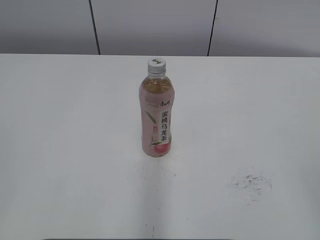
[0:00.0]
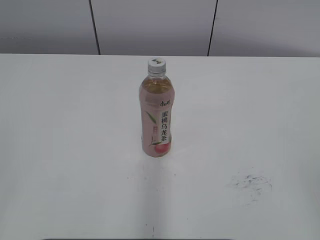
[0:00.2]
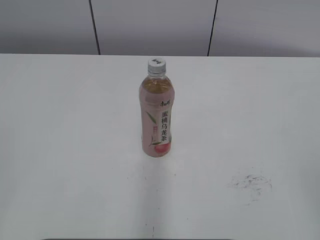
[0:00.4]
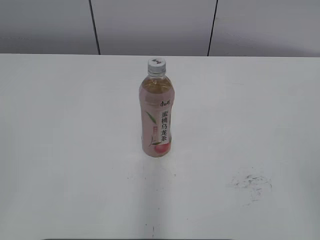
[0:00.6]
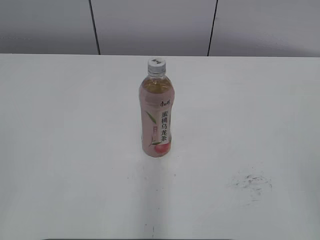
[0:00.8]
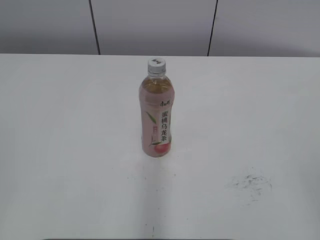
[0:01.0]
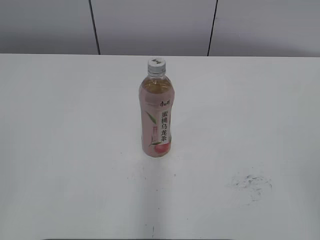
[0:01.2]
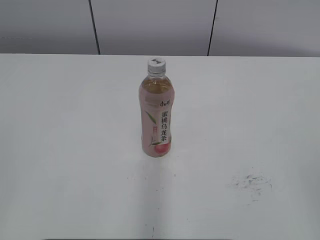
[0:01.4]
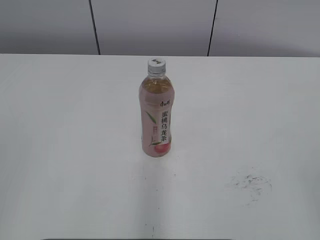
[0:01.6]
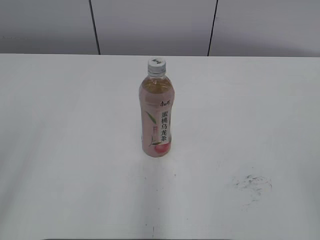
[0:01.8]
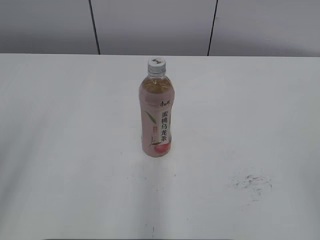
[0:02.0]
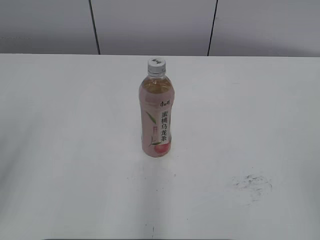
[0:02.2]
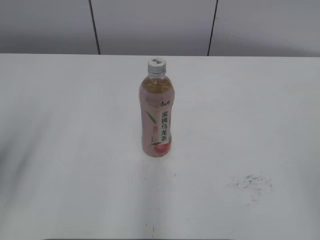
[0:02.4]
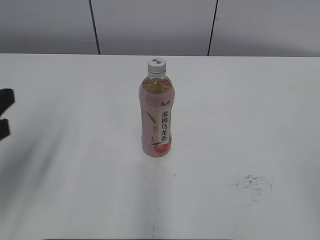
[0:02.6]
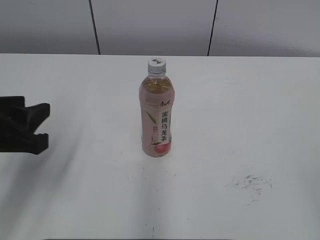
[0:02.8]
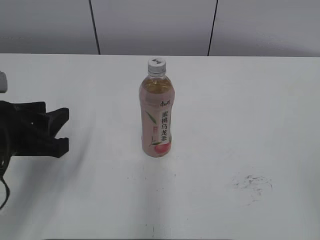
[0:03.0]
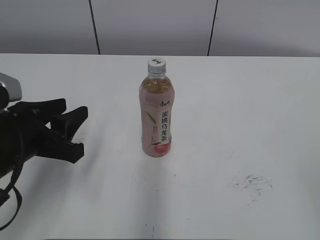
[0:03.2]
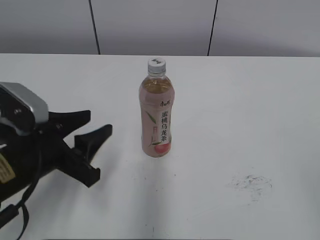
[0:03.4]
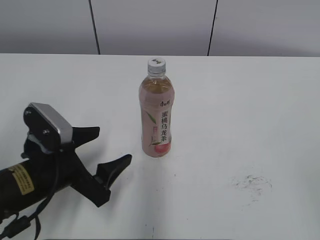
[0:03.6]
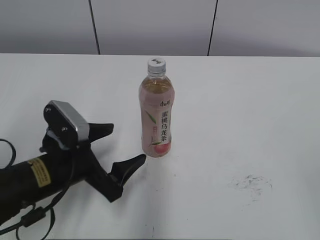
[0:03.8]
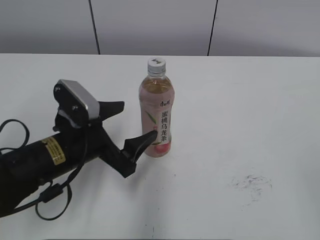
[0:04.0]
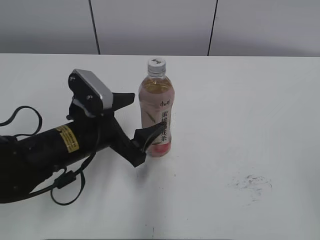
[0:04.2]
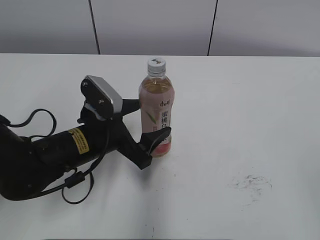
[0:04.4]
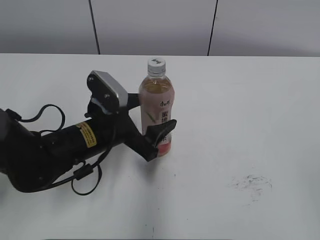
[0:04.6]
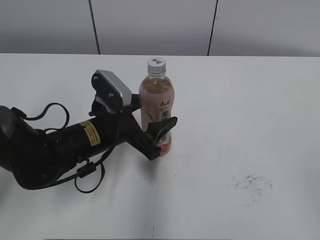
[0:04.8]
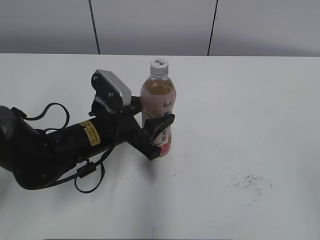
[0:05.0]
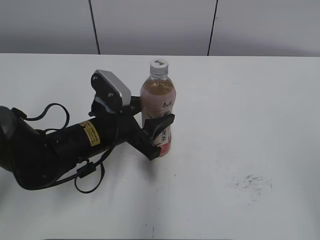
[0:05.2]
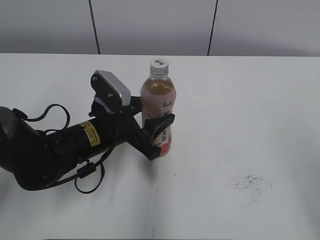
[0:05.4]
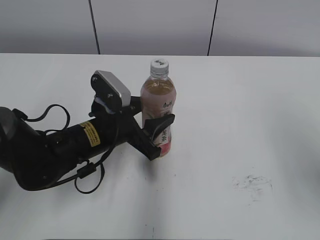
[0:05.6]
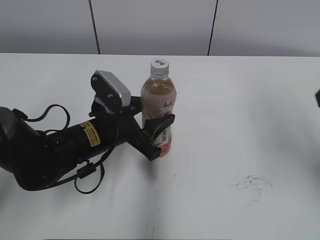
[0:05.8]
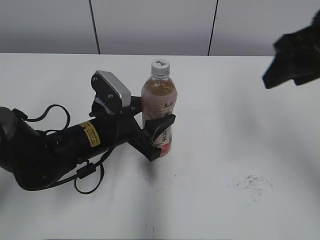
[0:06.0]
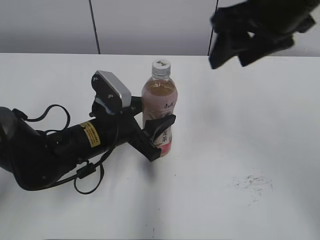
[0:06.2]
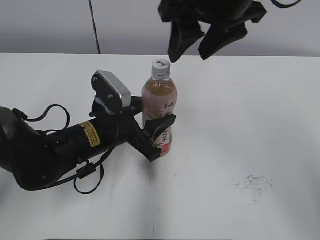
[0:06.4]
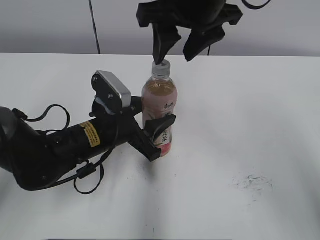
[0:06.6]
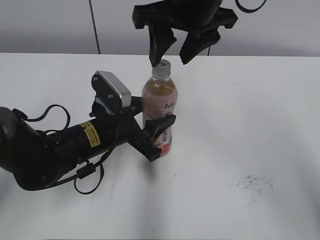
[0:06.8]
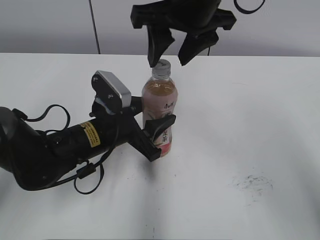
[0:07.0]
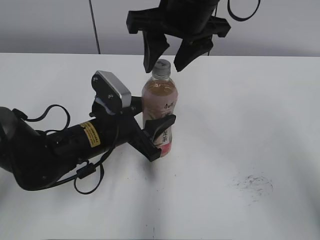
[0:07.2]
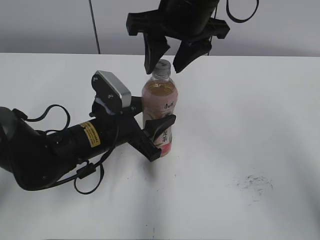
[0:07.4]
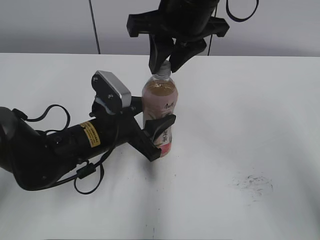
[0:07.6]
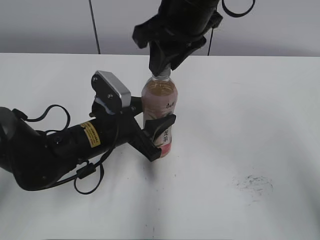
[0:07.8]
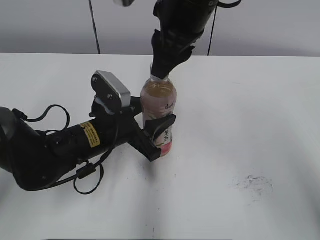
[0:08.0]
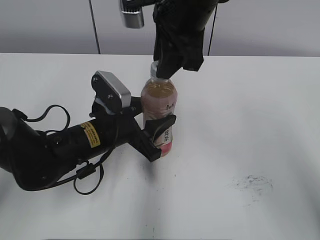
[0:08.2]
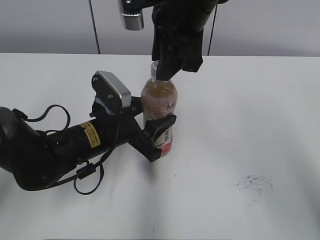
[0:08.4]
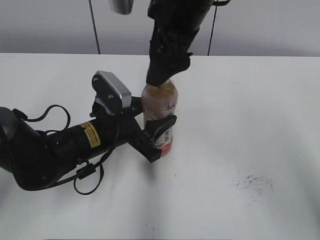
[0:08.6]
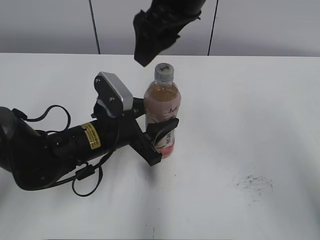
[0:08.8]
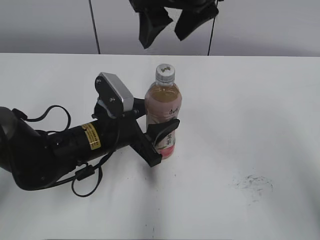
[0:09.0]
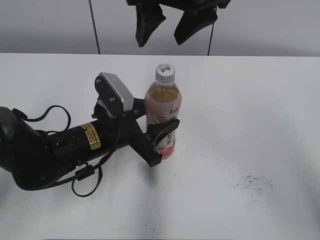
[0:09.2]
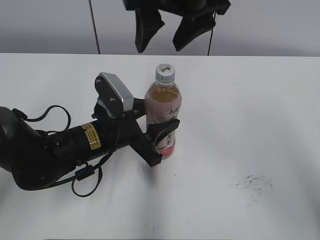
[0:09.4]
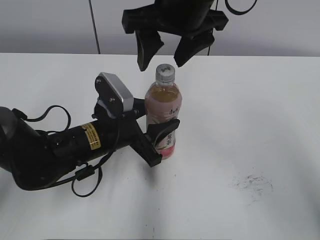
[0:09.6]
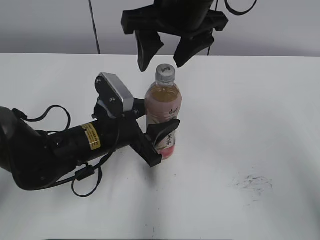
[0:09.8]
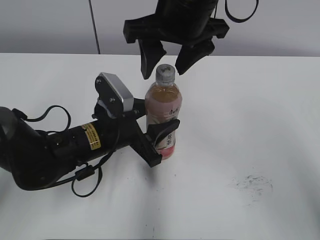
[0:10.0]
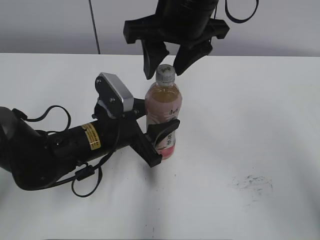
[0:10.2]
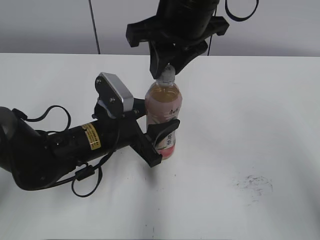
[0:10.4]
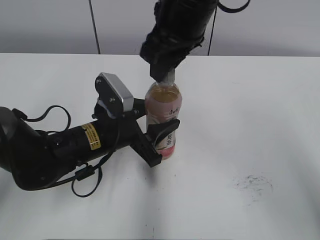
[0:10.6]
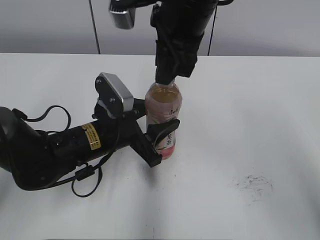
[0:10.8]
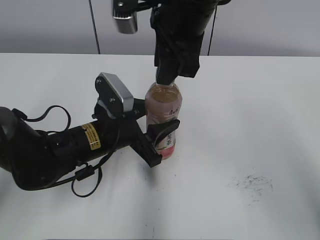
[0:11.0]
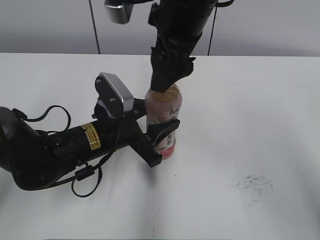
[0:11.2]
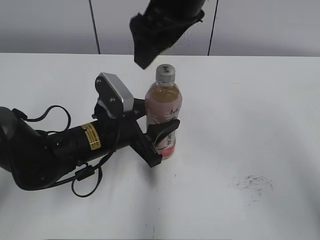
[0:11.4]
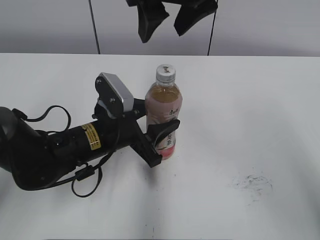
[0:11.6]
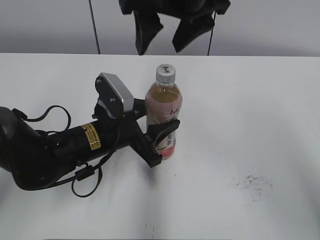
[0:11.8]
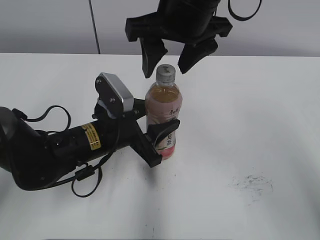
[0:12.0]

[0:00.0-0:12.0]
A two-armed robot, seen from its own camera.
Step, 0:00.0 to 0:05.2: Grab the Peach Oolong Tea with the left hand.
0:01.6 to 0:03.0: The left gripper is displaced forward, downward and to the right by roughly 25 cm.
0:03.0 to 0:04.4: The left gripper moves to the right, forward and downward, approximately 15 cm, and opens its fingers.
0:04.4 to 0:06.0: The right gripper goes about 25 cm forward, while the left gripper closes.
0:06.0 to 0:07.6: The right gripper shifts about 15 cm to the left, and closes up.
0:07.6 to 0:09.0: The right gripper opens its fingers.
0:09.0 to 0:10.4: The right gripper closes.
0:10.4 to 0:12.0: The right gripper opens up.

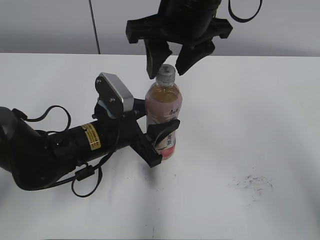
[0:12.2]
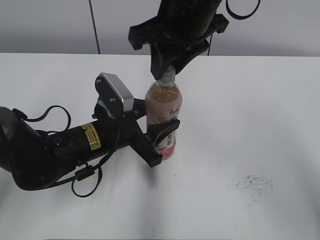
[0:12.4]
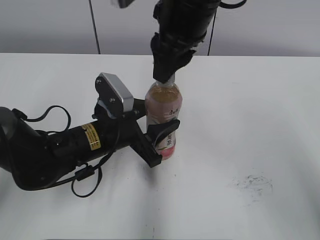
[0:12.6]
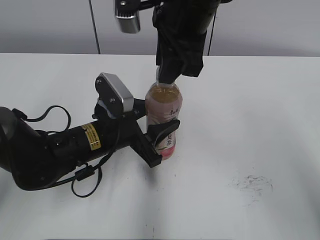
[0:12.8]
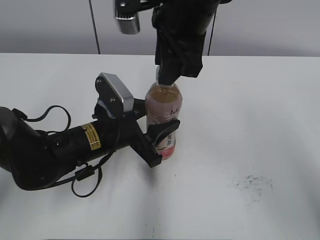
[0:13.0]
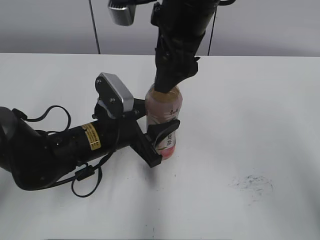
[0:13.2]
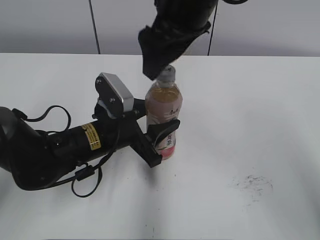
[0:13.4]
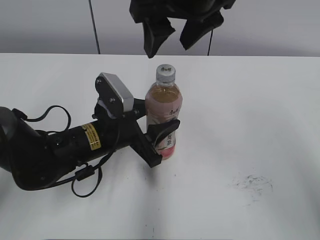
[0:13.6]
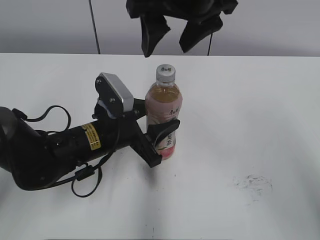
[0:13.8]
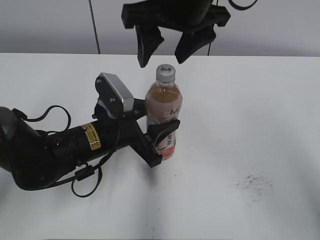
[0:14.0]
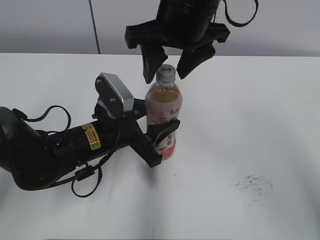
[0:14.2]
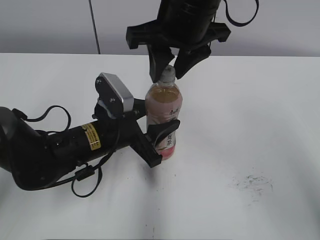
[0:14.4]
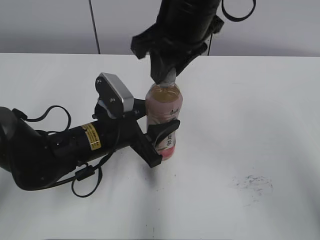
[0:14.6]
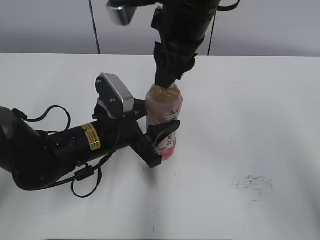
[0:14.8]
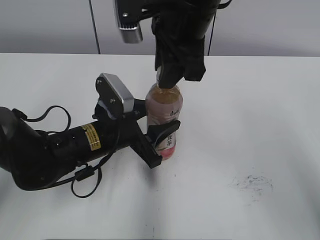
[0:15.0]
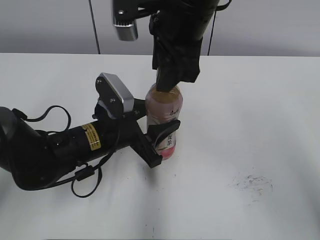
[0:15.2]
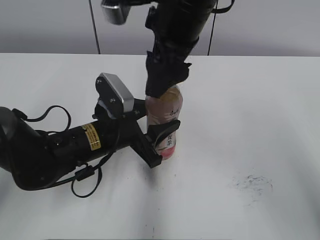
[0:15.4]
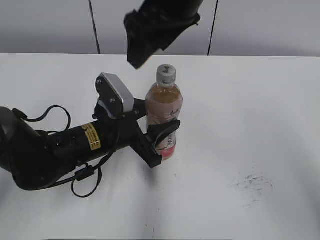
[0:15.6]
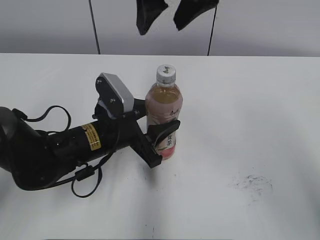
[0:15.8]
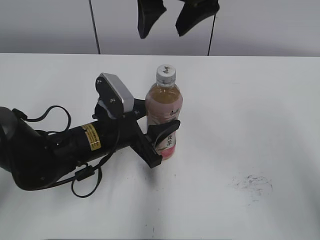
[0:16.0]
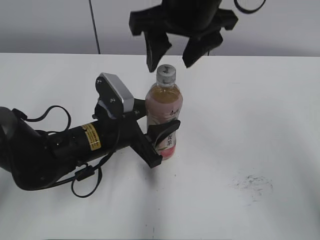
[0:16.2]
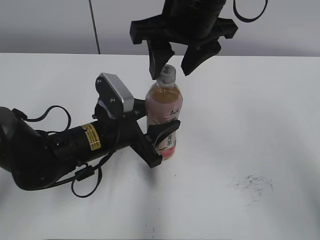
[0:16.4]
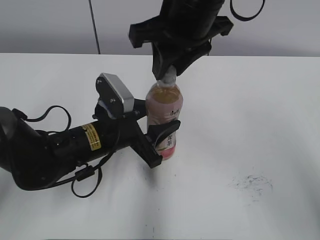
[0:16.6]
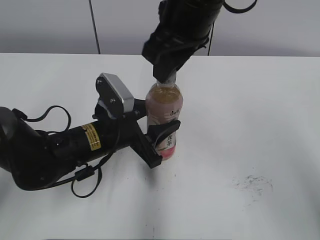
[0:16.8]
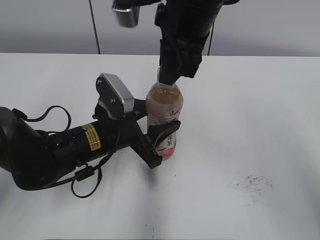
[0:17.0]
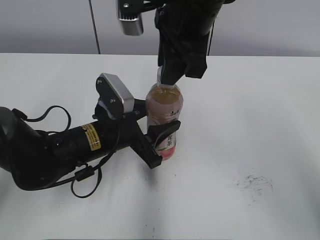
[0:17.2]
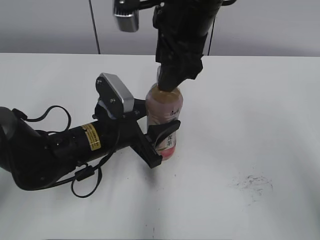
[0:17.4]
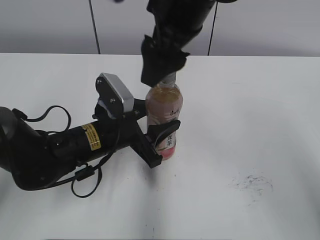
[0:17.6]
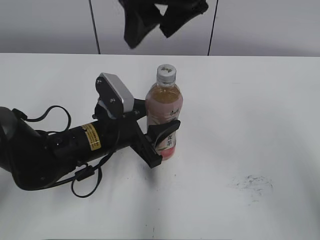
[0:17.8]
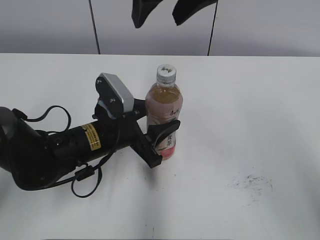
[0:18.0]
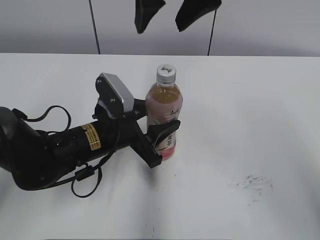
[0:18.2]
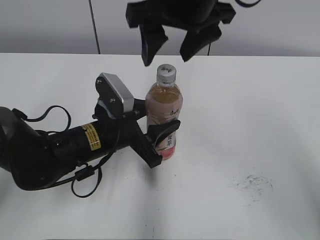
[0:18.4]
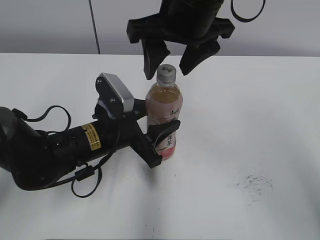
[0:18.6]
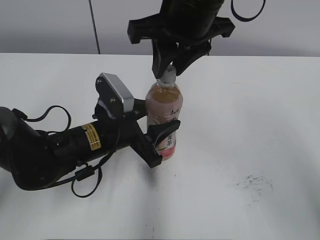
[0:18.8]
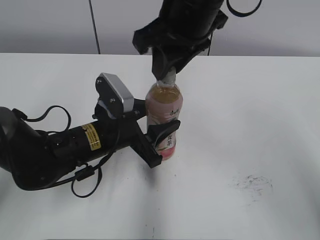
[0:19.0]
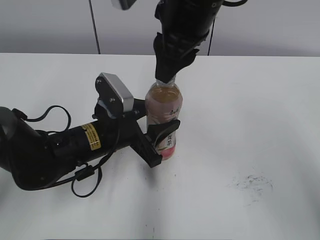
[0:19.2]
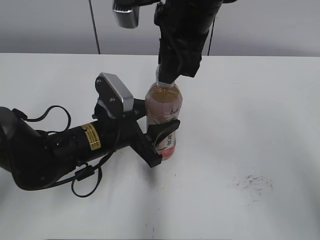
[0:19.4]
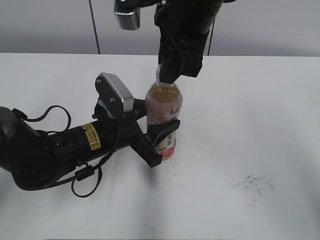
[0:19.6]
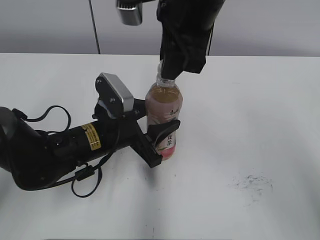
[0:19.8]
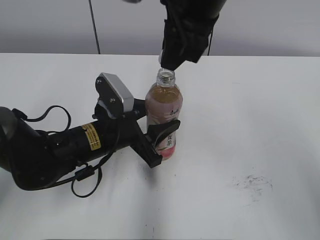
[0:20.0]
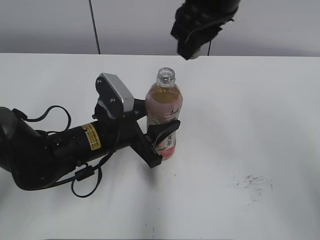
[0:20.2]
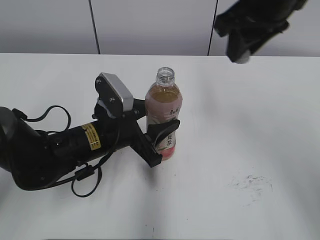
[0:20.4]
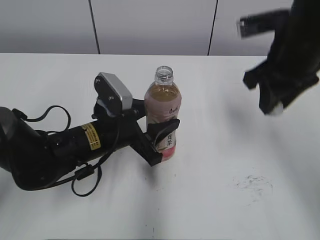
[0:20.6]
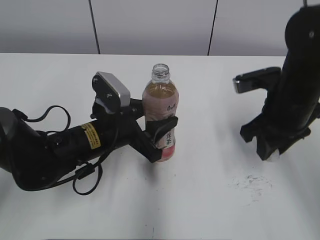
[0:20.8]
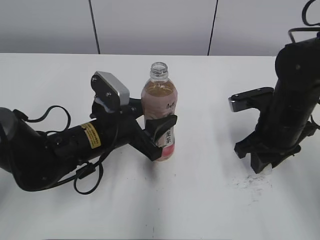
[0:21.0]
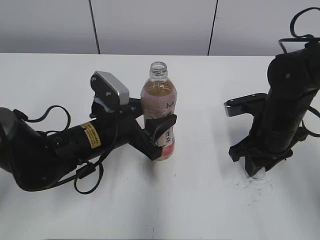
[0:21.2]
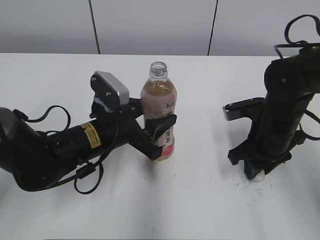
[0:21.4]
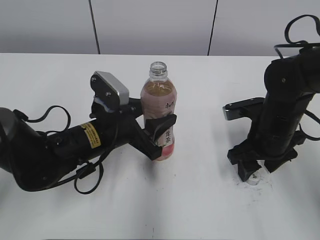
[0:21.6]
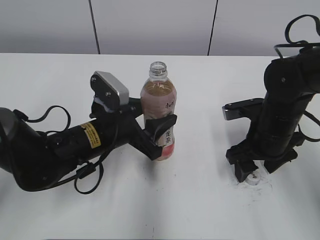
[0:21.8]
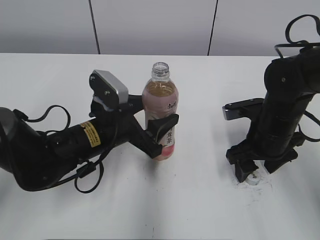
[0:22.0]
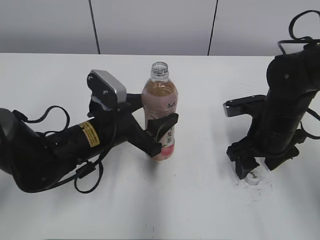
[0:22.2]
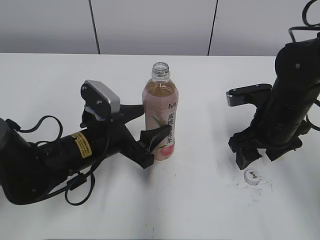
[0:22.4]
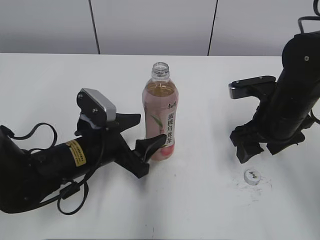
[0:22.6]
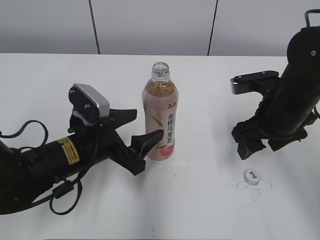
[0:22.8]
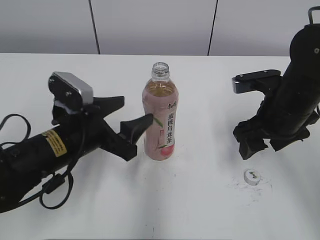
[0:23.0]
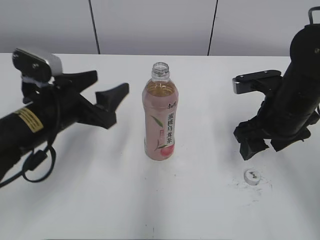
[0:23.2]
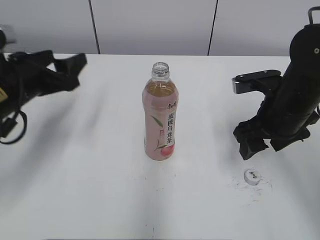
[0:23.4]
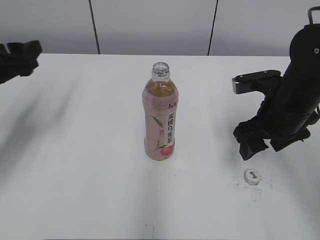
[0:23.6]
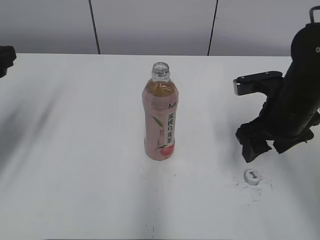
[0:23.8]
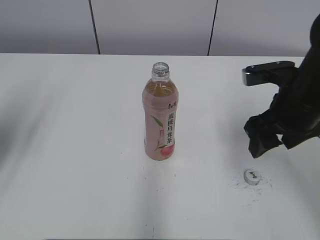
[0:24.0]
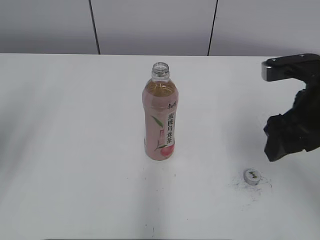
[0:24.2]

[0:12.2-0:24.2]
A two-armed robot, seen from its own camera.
Step, 0:20.0 to 0:21.4: Place the bottle cap on the right.
Step, 0:21.8 to 0:22.0: Place the Peach Oolong Tea with the left hand.
0:12.2 to 0:13.8: The right gripper closes and opens again.
0:13.8 to 0:15.2: The right gripper closes up.
0:15.2 to 0:16.6: The right gripper opens, then closes once more.
0:16.6 to 0:18.2: The right gripper is displaced upward by about 5 cm, and opens.
0:18.2 to 0:19.8: The right gripper closes up.
0:19.8 to 0:21.2: The right gripper heads downward and to the right, covering approximately 25 cm.
0:21.2 to 0:22.6: The left gripper opens. Meanwhile the right gripper opens its fingers.
0:22.6 to 0:24.2: The right gripper heads upward, covering roughly 5 cm. Meanwhile the left gripper is displaced to the left and upward by roughly 30 cm.
